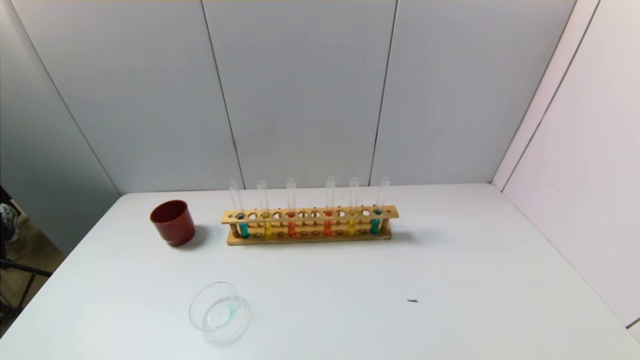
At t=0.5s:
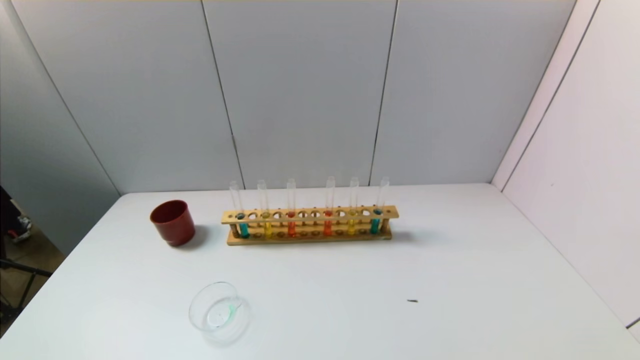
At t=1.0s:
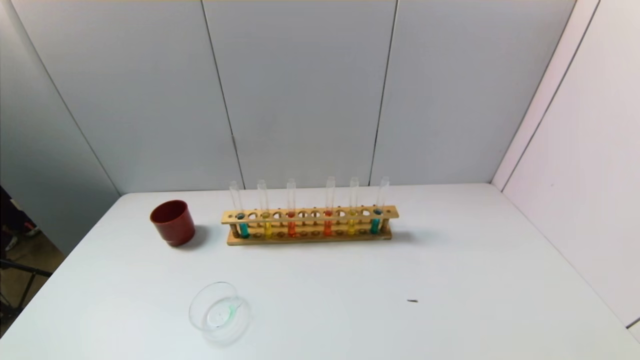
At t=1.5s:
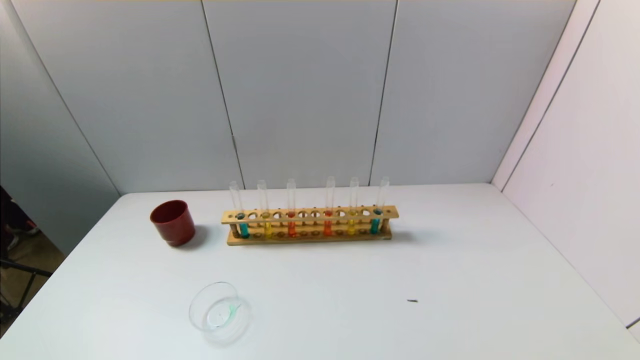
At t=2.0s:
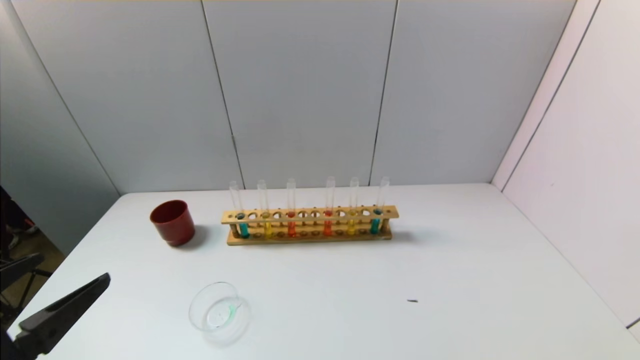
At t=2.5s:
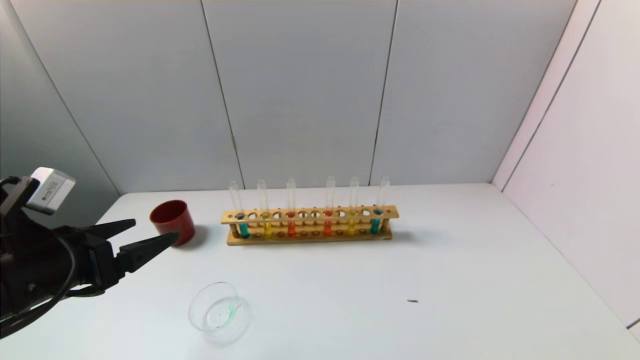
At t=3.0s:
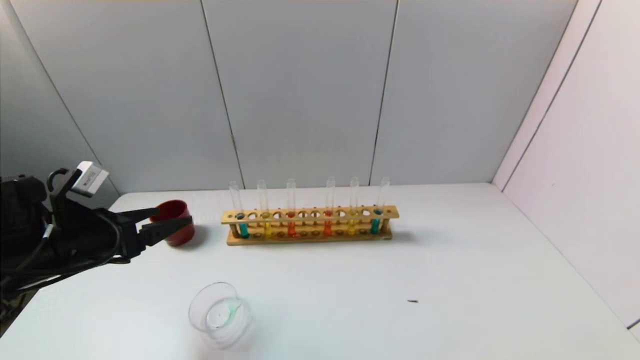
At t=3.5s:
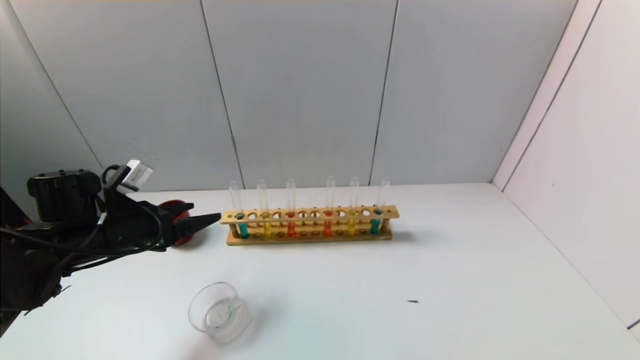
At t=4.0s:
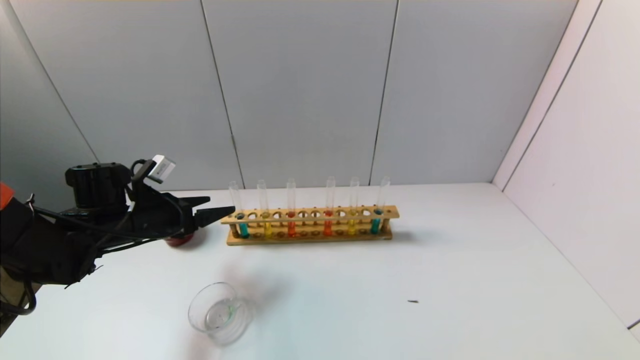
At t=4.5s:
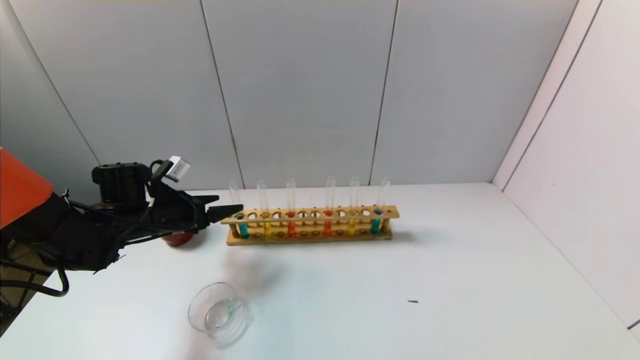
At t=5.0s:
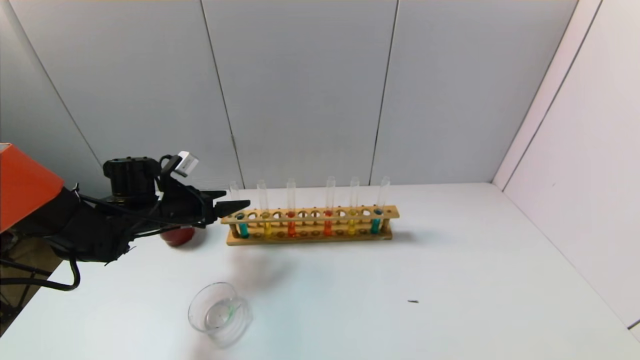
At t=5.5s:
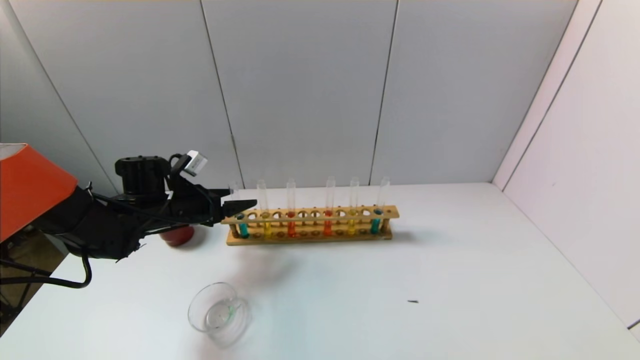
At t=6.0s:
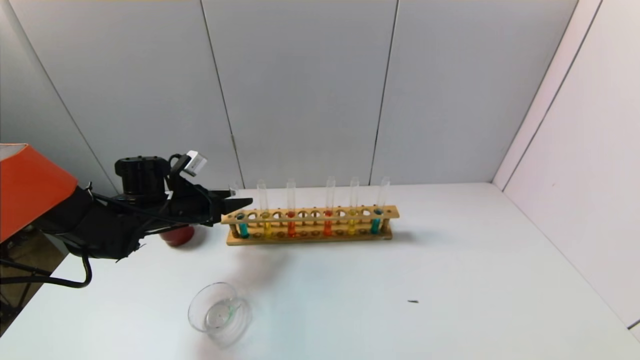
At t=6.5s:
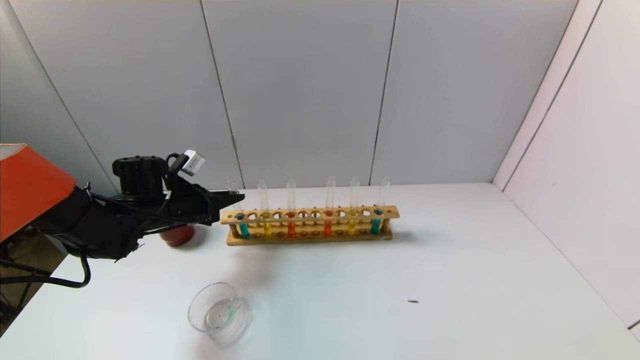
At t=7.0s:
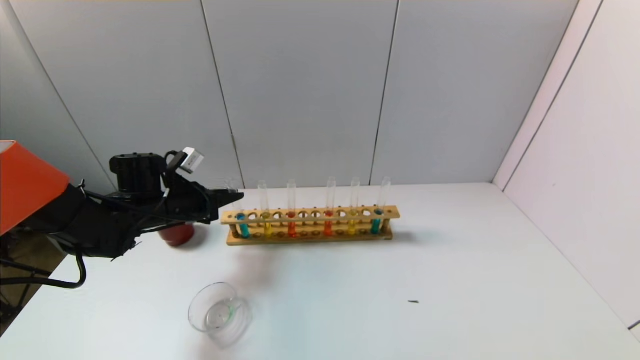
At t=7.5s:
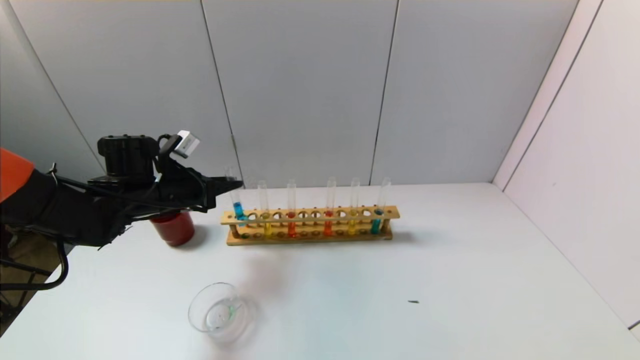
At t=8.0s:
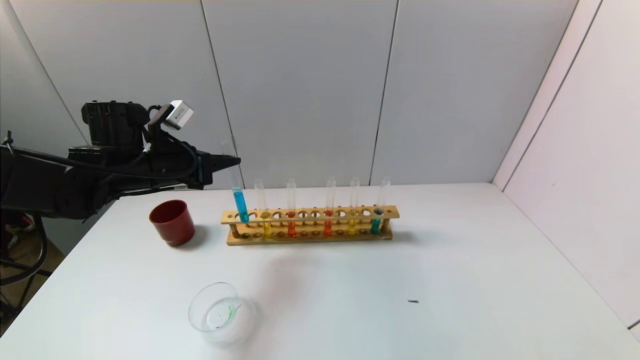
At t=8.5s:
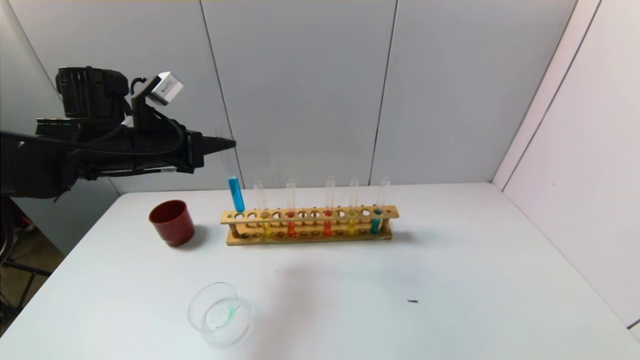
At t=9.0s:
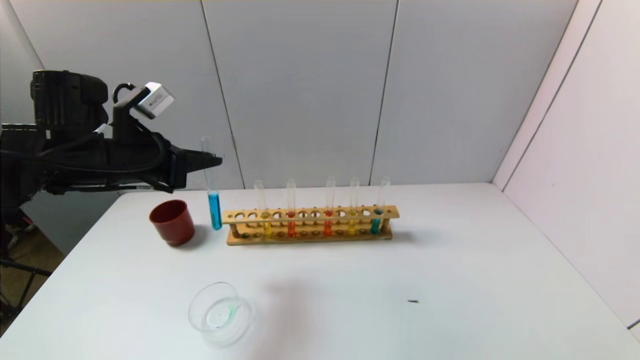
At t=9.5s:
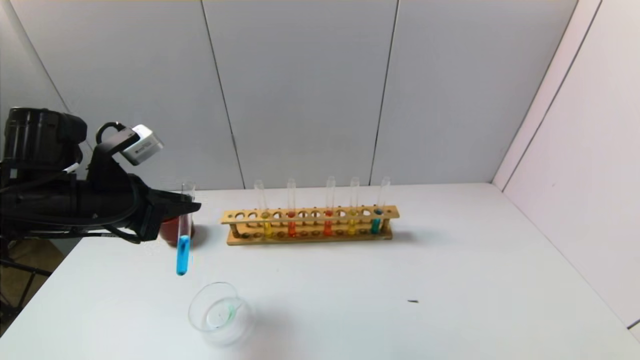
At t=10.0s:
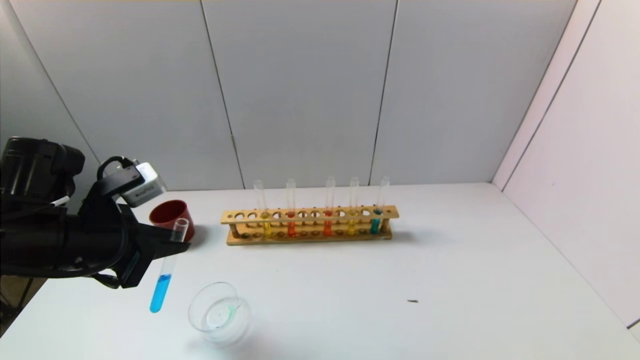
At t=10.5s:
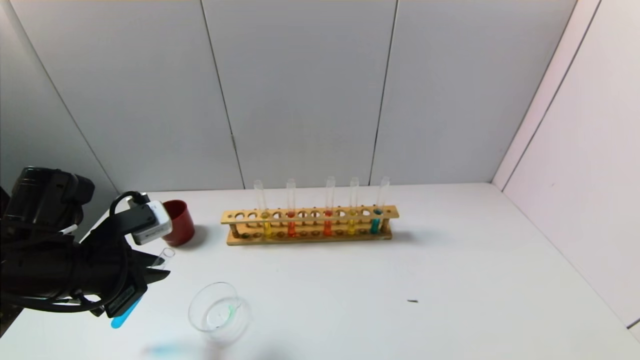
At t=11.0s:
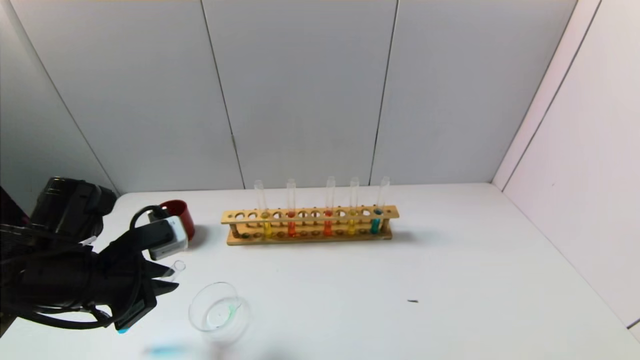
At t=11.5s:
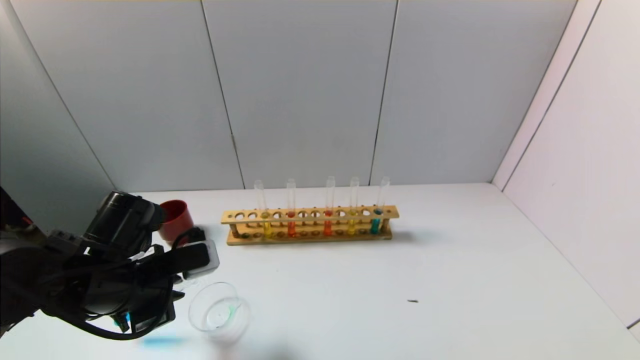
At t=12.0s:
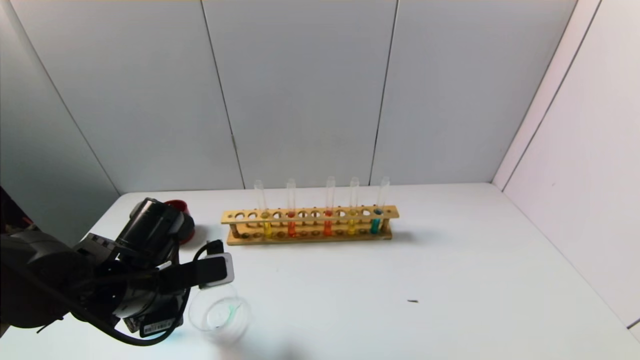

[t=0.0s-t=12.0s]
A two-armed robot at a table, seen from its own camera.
Task of the whole recording: pick up the test tube with yellow pigment and the test tube with blue pigment by grippers and pour them into the beaker.
Step, t=0.0s to t=7.0s: Grasp the blue reagent with the left gripper.
t=0.0s to t=2.0s: The left gripper goes some 15 cm upward and forward.
t=2.0s to t=4.0s: The left gripper moves forward, approximately 25 cm.
t=4.0s to t=6.0s: The left gripper shifts by roughly 5 cm, and closes.
t=6.0s to t=8.0s: The left gripper goes roughly 10 cm upward, and closes up.
t=8.0s to t=10.0s: The left gripper is displaced backward by roughly 15 cm.
t=10.0s to t=12.0s: The left gripper travels downward and to the right by approximately 10 cm.

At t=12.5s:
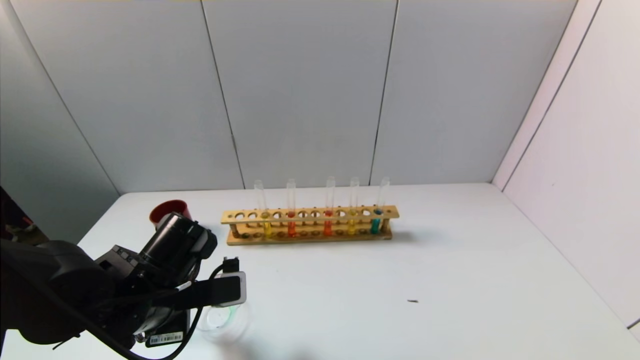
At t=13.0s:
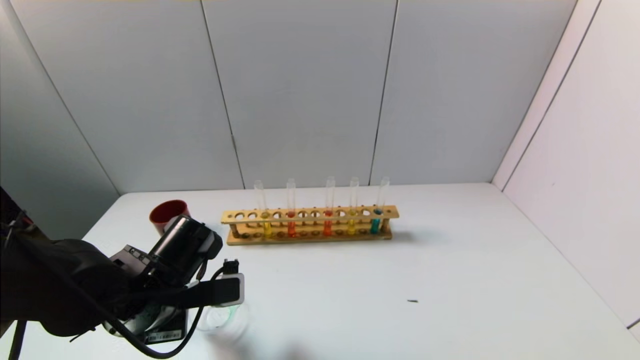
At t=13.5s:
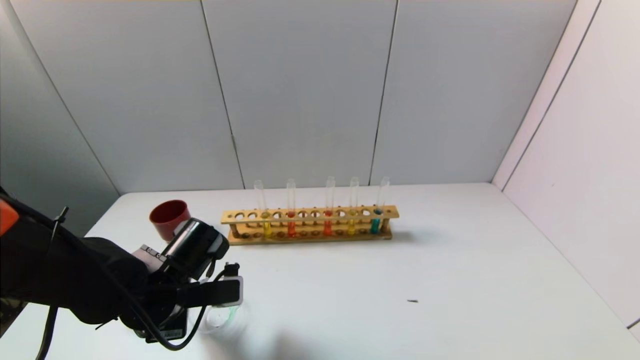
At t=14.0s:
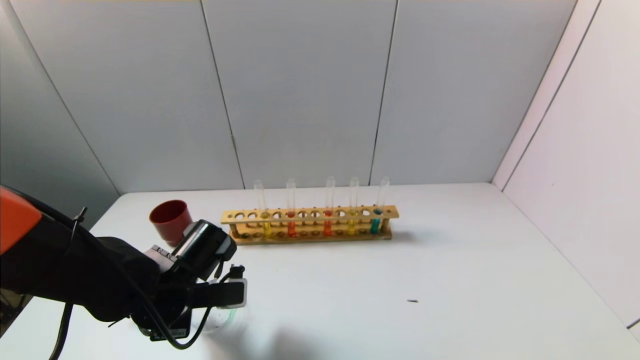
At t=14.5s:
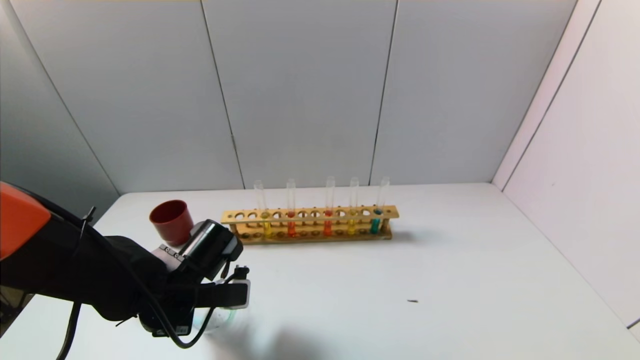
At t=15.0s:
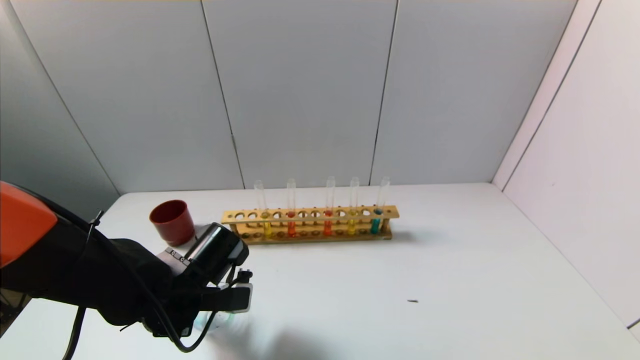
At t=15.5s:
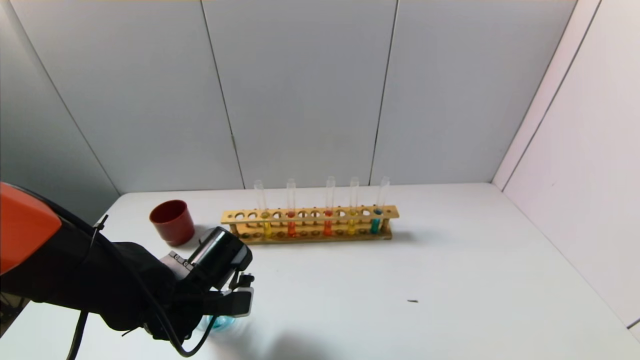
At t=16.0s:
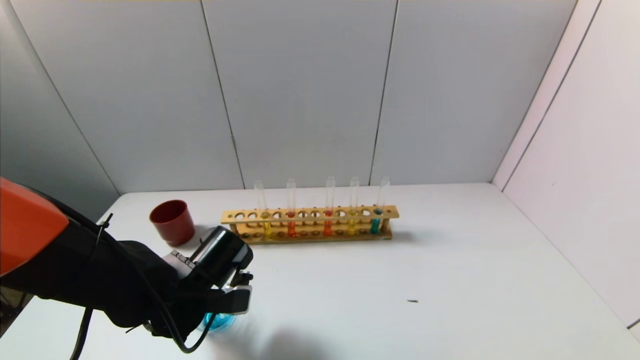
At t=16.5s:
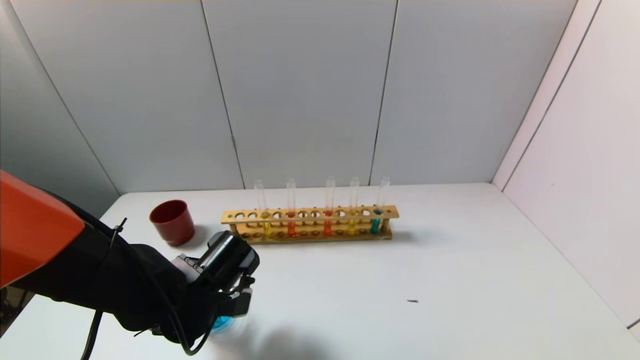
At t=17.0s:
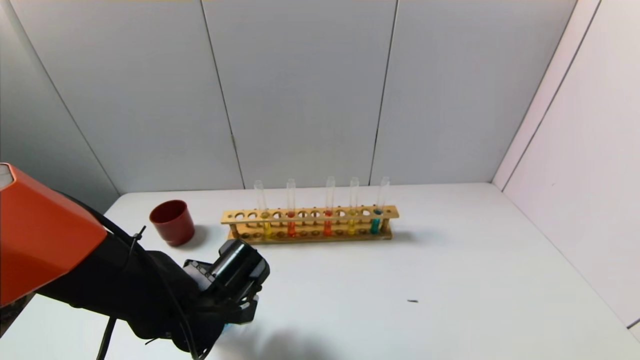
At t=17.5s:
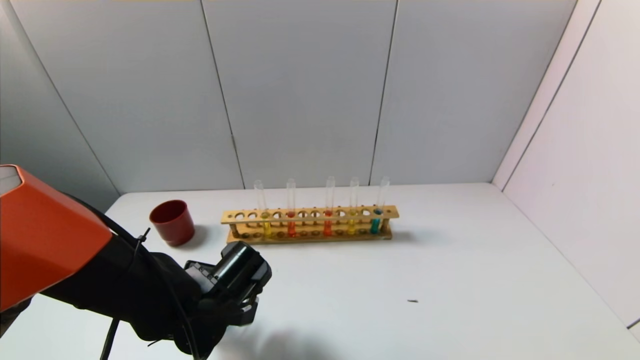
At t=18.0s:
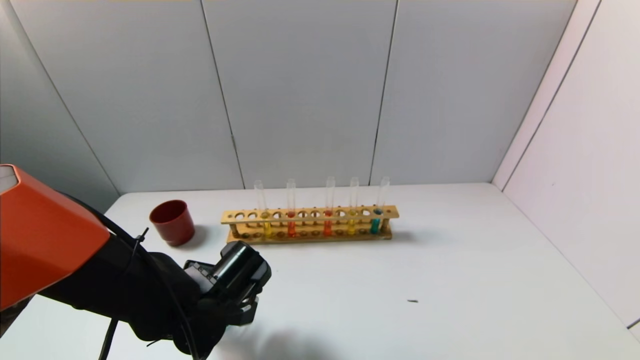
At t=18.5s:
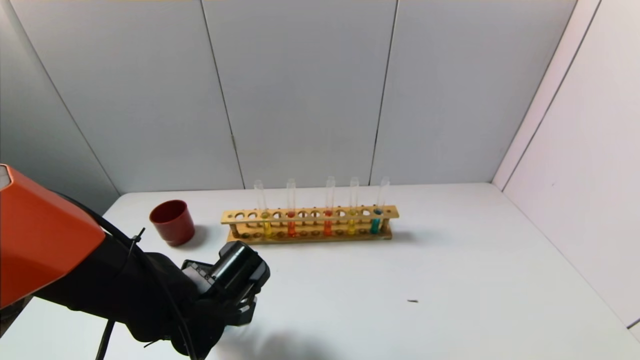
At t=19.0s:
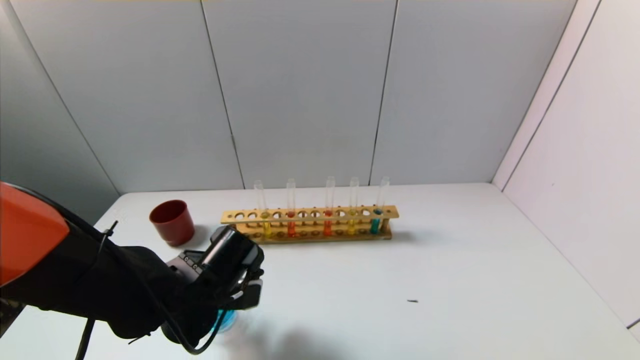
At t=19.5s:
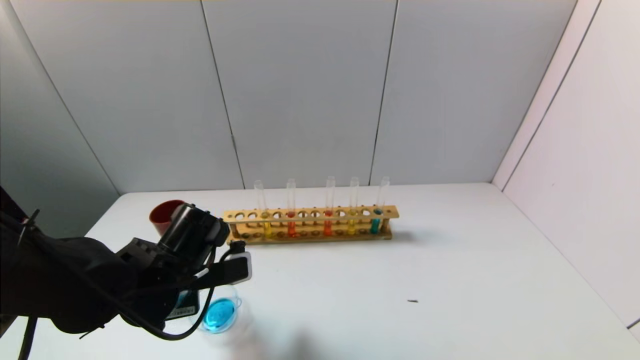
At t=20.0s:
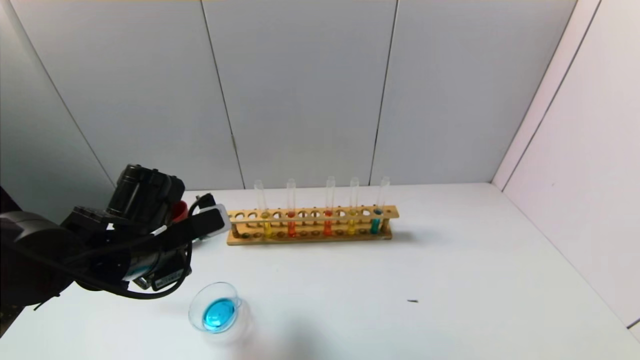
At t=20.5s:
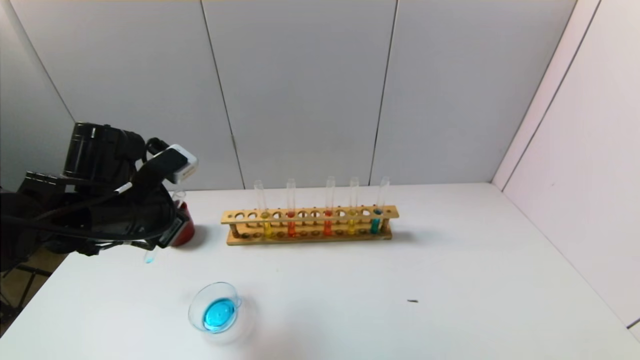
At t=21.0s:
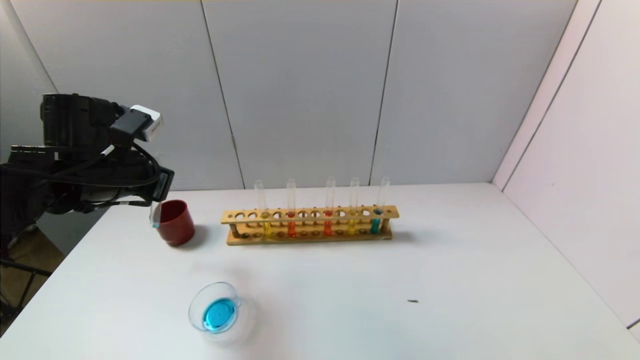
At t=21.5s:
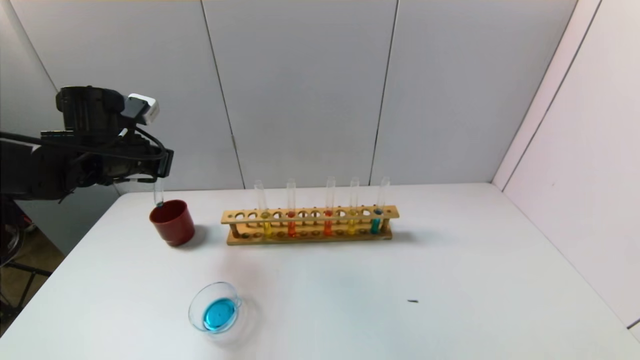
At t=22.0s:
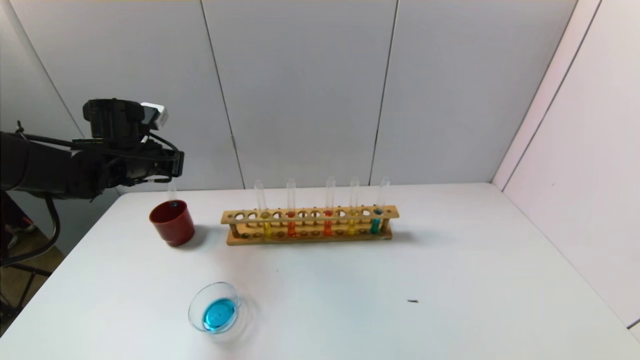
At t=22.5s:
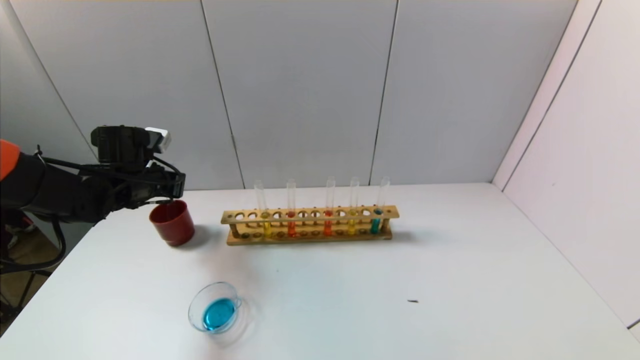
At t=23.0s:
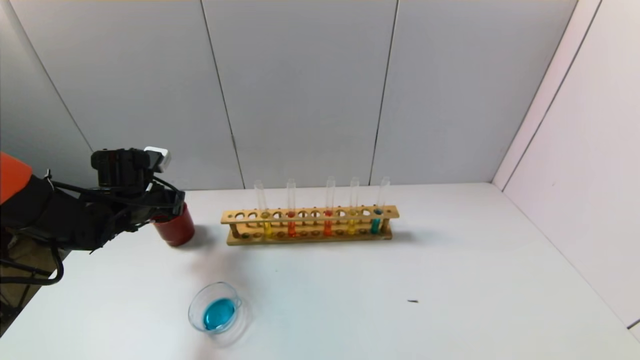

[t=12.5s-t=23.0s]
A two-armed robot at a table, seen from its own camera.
Task of the whole recording: pick up the test tube with yellow pigment and the test tube with blue pigment by grippers and pour them into the beaker.
Step, t=12.5s to t=18.5s: Pour the blue reagent into the graduated cylinder with the left gripper.
t=12.5s to t=14.5s: There are only small adjustments of the grippers.
t=14.5s to t=19.0s: There are only small adjustments of the grippers.
t=19.0s to t=21.0s: The left gripper travels upward, to the left and forward by approximately 20 cm.
t=21.0s to t=23.0s: The left gripper is displaced downward and forward by about 10 cm.
